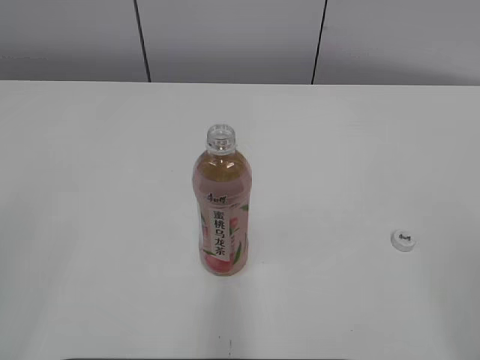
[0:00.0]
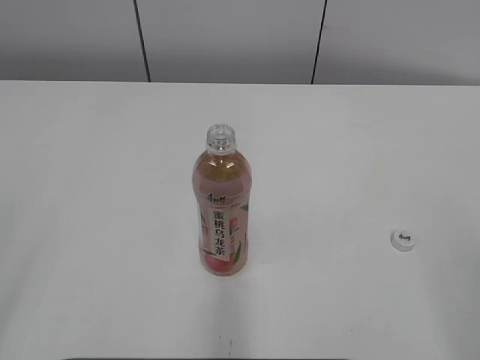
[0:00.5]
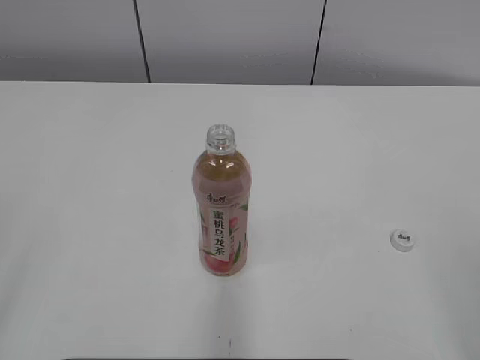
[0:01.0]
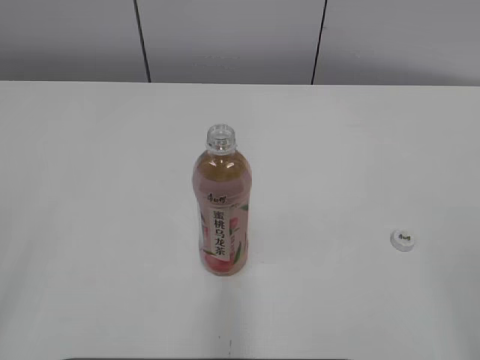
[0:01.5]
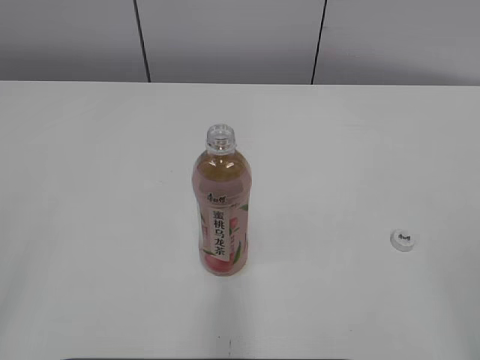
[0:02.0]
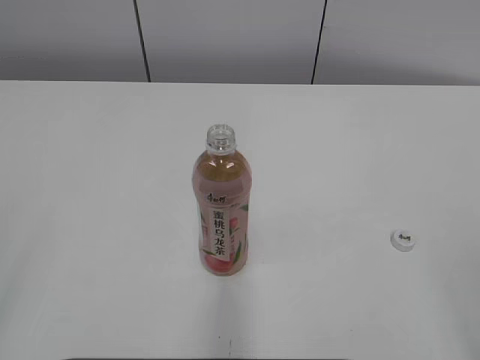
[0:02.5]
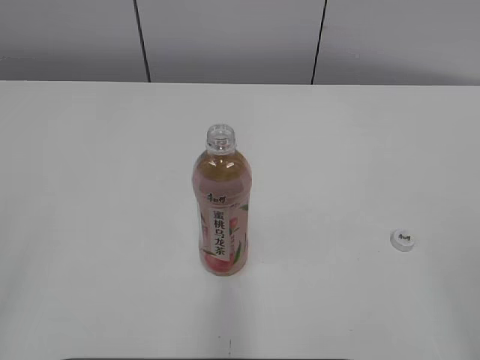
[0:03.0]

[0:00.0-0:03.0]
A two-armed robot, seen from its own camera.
0:01.5 to 0:03.0: The two grippers keep their place.
